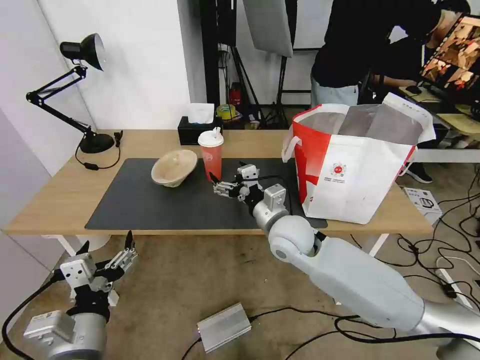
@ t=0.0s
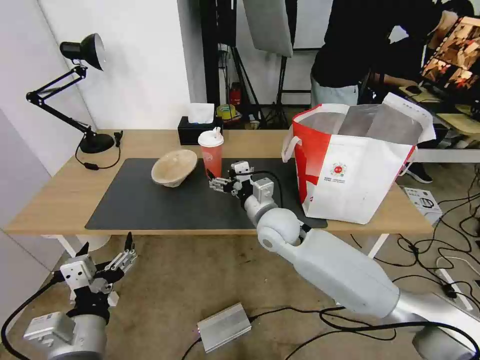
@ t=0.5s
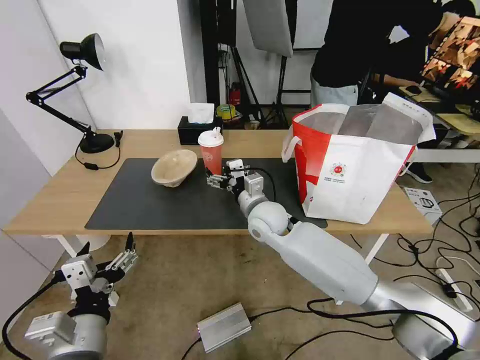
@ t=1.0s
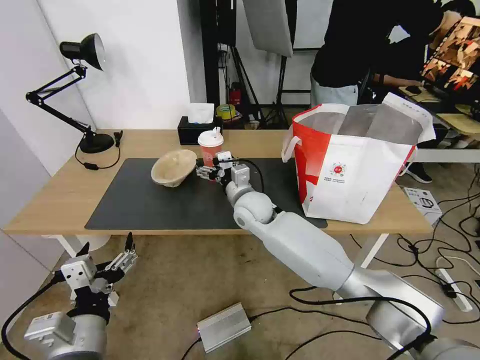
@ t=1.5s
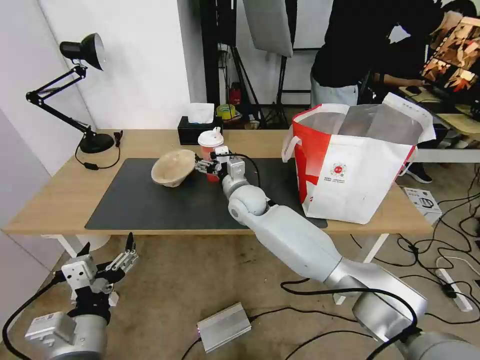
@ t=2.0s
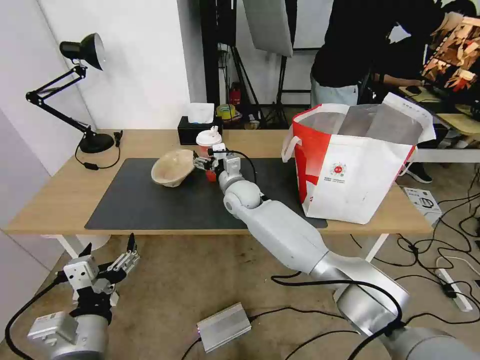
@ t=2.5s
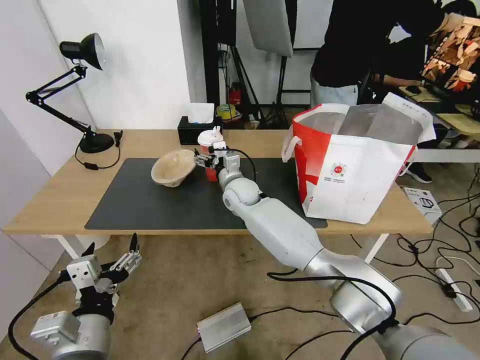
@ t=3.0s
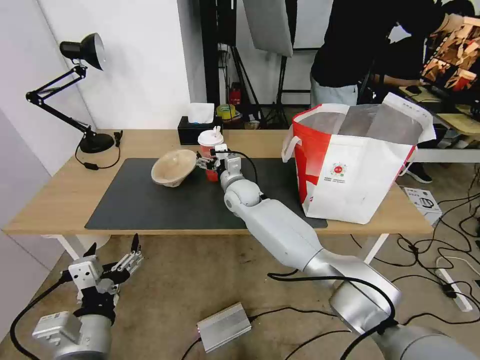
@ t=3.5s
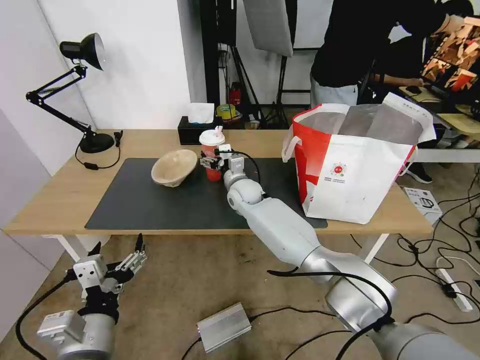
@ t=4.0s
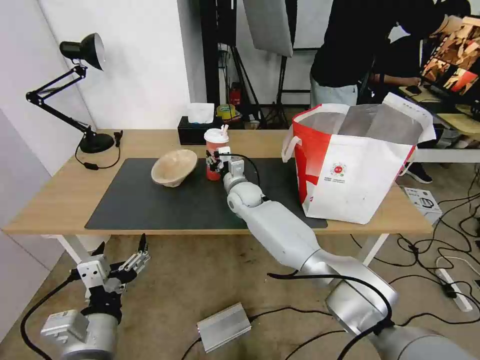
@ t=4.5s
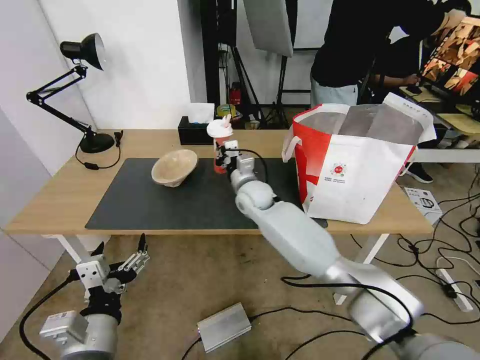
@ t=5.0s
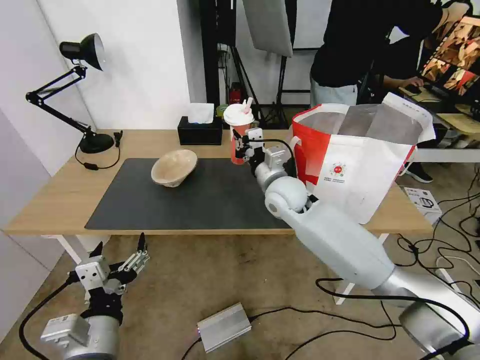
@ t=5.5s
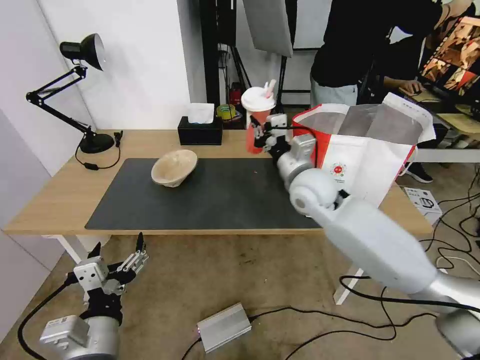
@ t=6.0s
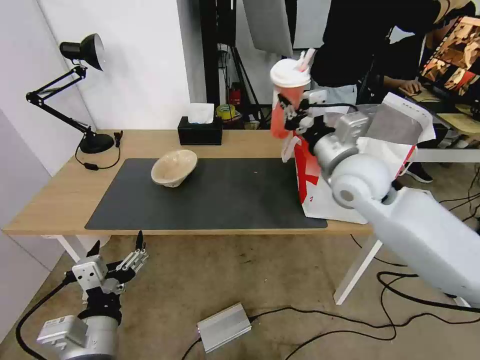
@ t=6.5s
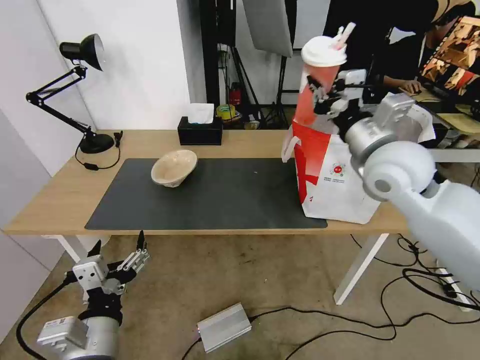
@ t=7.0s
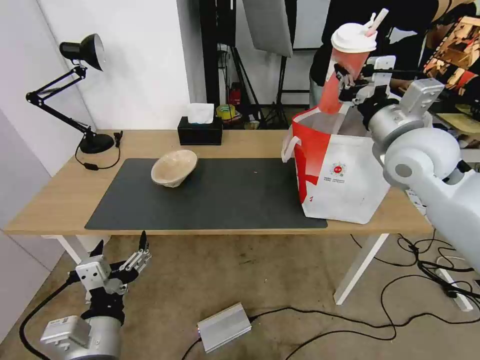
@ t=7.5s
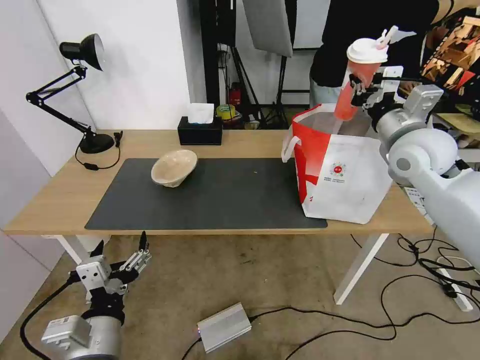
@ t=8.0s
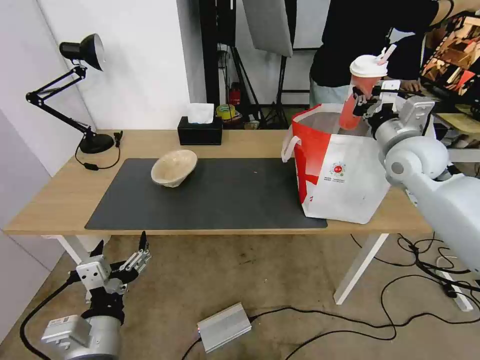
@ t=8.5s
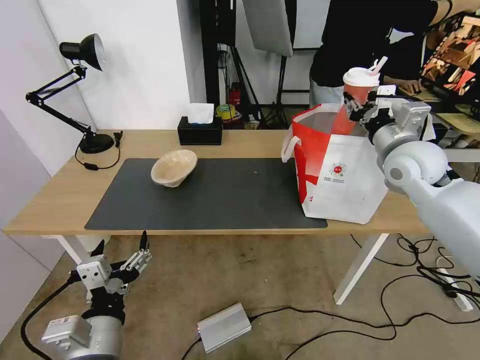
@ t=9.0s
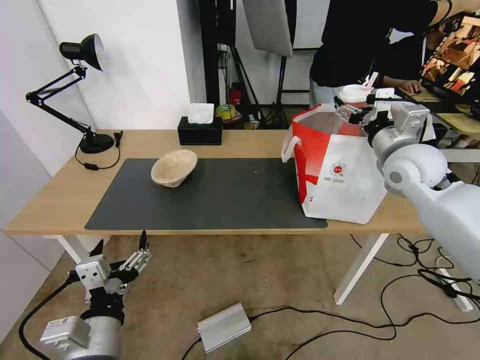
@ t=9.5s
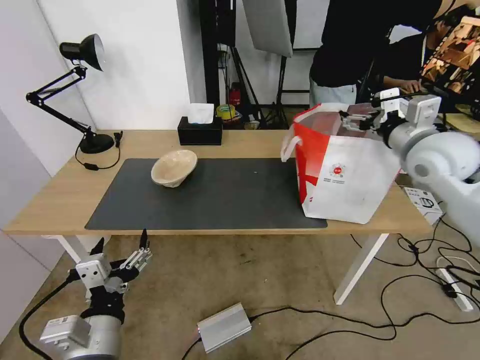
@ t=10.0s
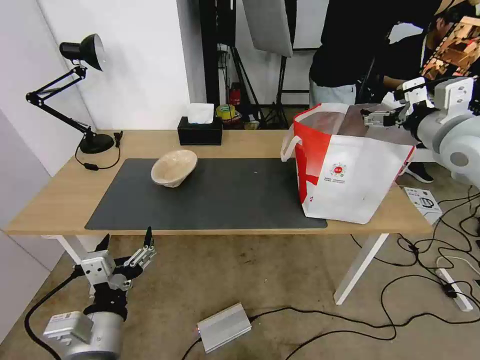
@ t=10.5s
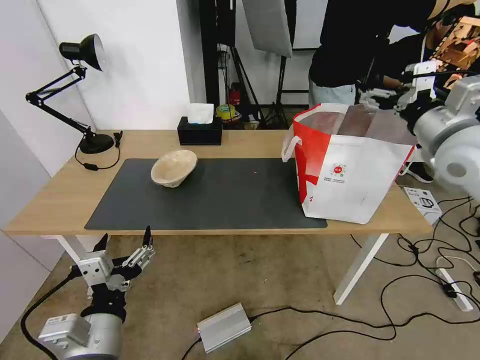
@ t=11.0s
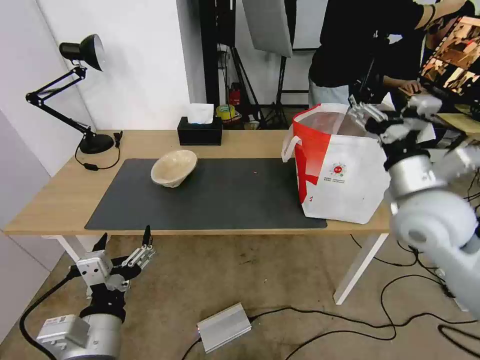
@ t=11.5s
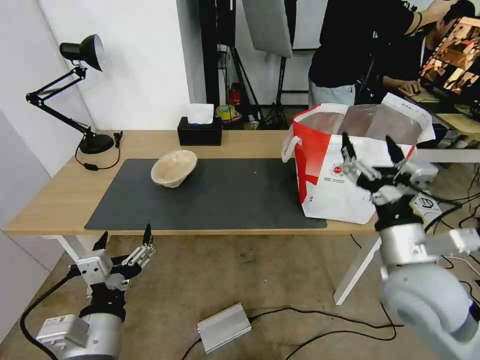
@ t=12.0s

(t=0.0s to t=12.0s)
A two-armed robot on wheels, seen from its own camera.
Task of the whole recording: Pick up the trash from the table and place it into the takeout bag.
t=0.0s - t=2.0s: The right gripper is displaced forward and to the left by approximately 15 cm.
t=2.0s - t=4.0s: The right gripper heads forward, covering approximately 5 cm.
t=4.0s - t=6.0s: The right gripper is displaced to the right, upward and backward by roughly 20 cm, and closes its fingers.
t=6.0s - t=8.0s: The right gripper shifts about 20 cm to the right and upward.
t=8.0s - t=10.0s: The right gripper opens.
t=10.0s - t=12.0s: The right gripper shifts about 25 cm backward, downward and to the left.

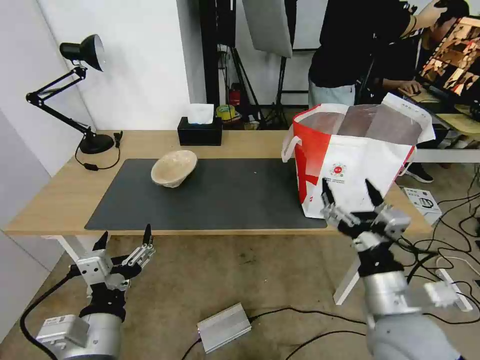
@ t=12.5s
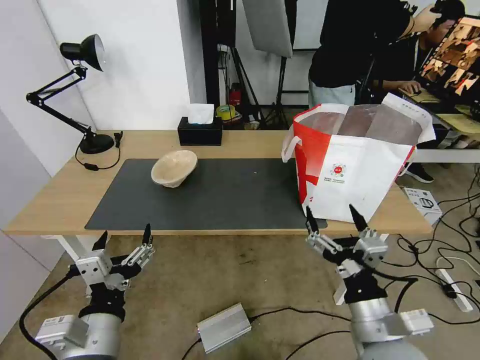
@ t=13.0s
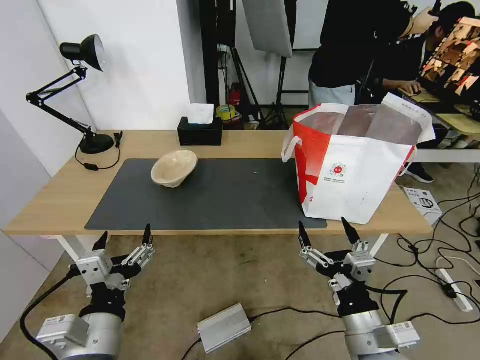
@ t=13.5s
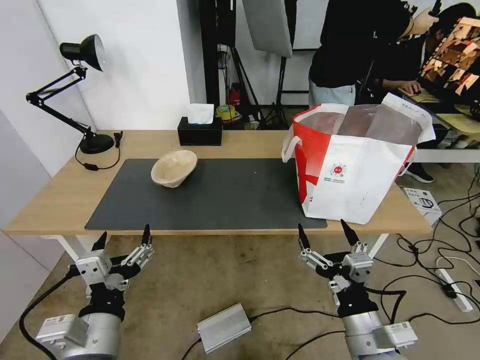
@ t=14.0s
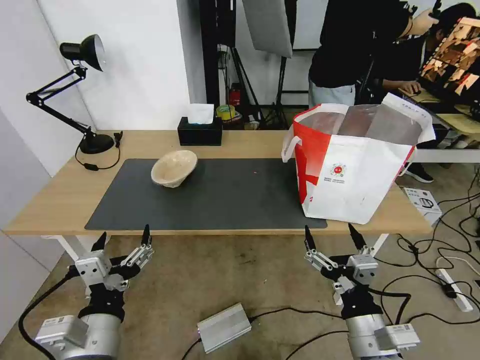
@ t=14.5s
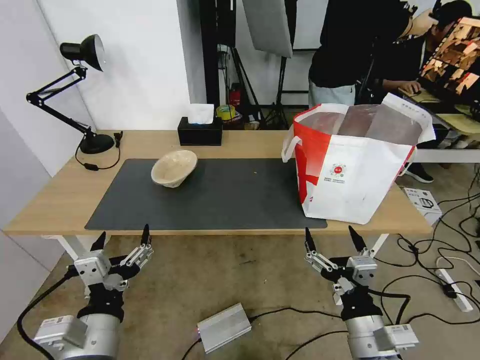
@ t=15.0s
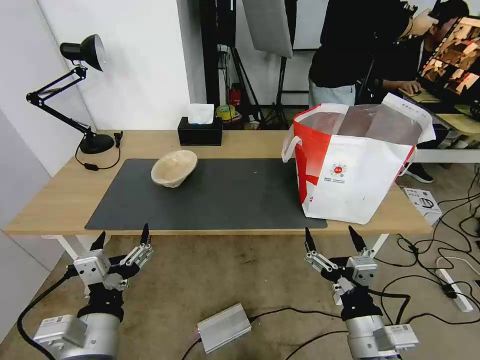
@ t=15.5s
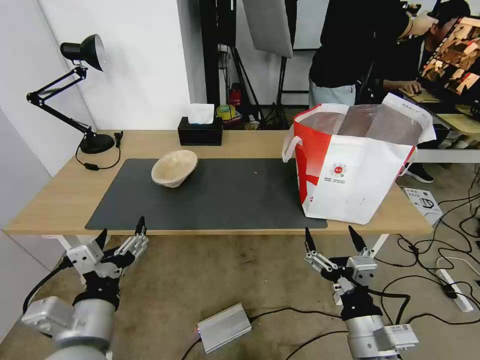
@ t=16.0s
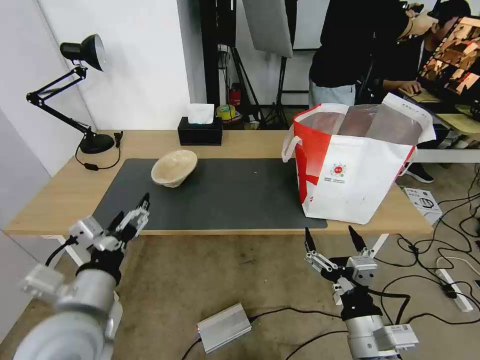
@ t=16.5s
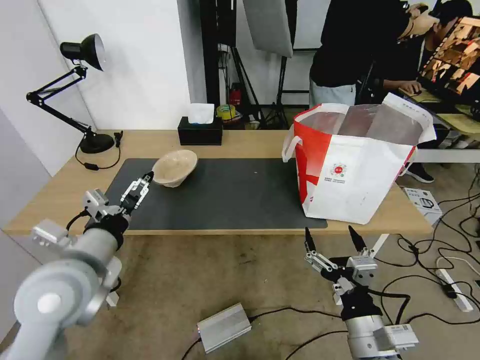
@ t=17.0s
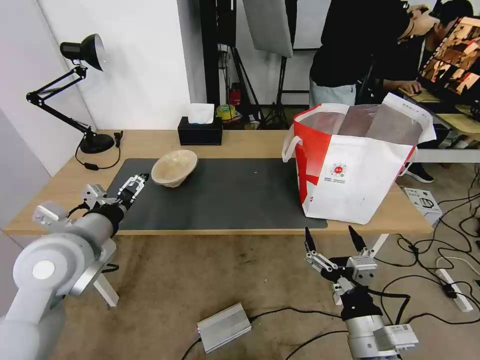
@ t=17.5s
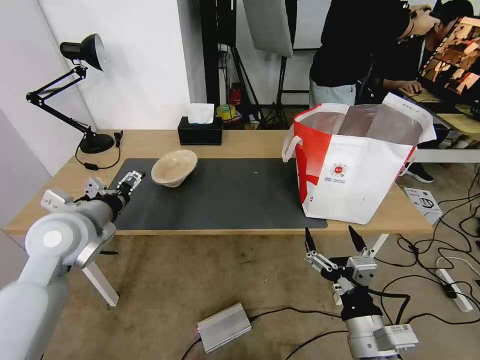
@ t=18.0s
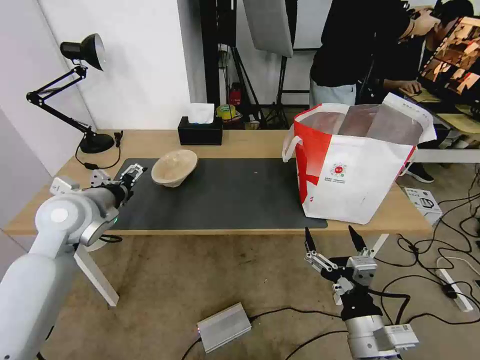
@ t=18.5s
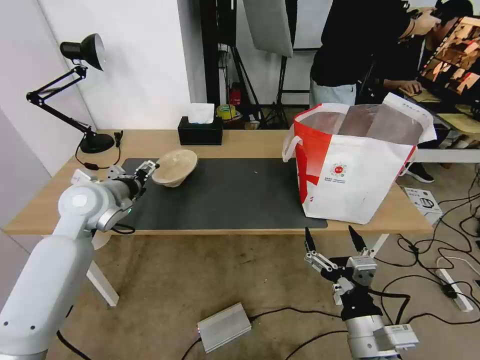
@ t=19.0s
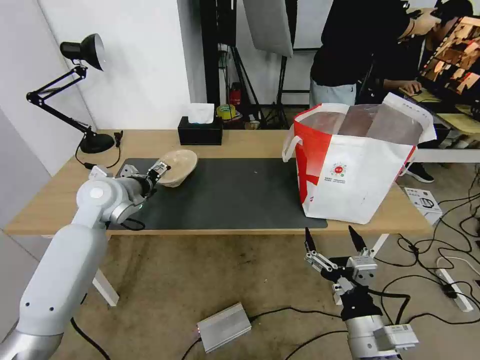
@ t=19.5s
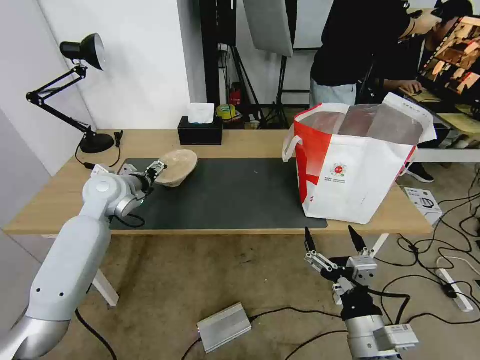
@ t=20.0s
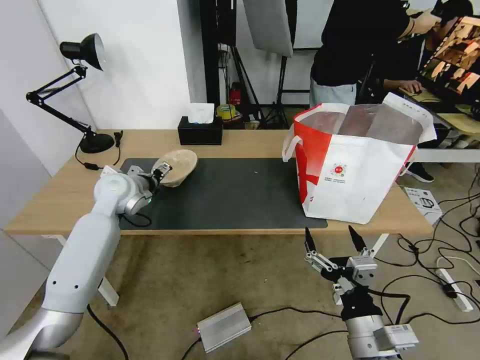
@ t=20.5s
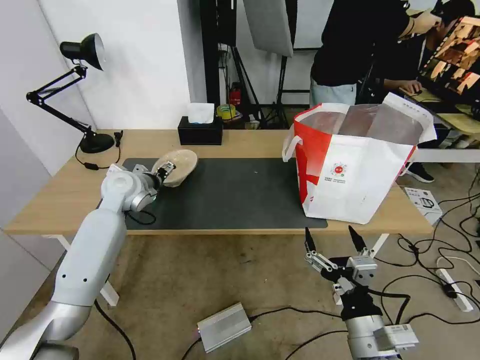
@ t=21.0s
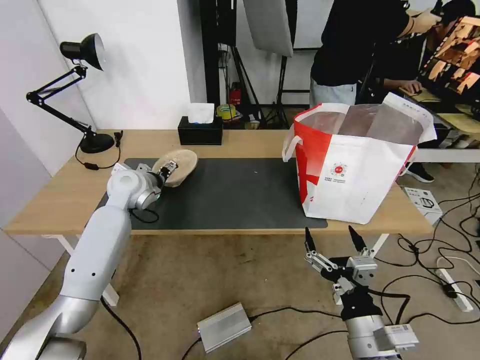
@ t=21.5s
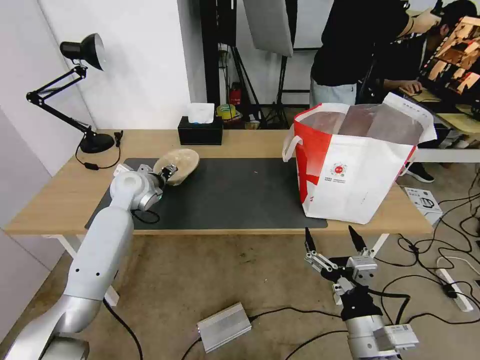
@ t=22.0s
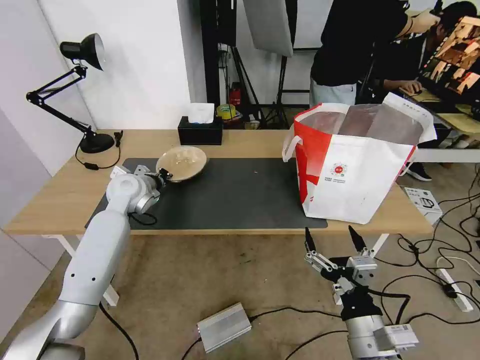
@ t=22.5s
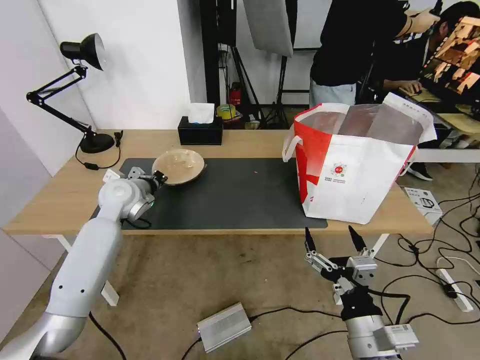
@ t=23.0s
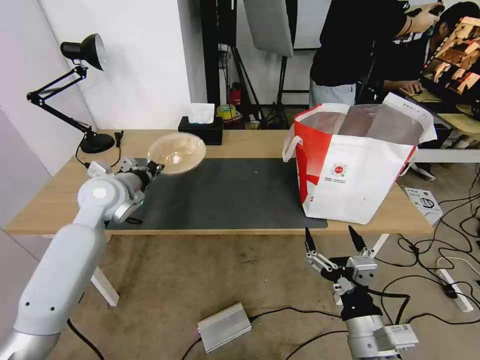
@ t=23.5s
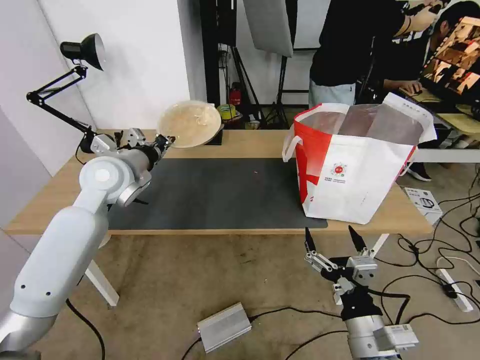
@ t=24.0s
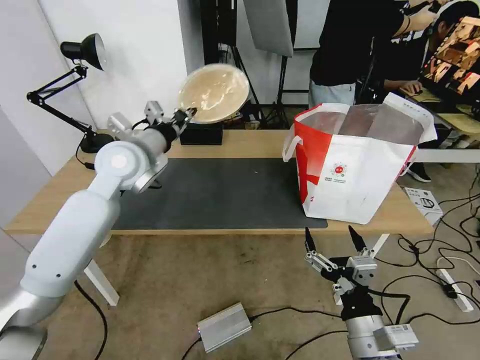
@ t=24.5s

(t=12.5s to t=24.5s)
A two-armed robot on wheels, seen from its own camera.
Task of the whole recording: Pick up the trash from the table and place it into the takeout bag.
t=12.5s - t=14.5s: The right gripper is displaced downward and backward by approximately 10 cm.
t=14.5s - t=16.5s: The left gripper travels forward by about 5 cm.
t=16.5s - t=18.5s: The left gripper goes approximately 20 cm forward.
t=18.5s - t=20.5s: The left gripper moves forward, some 10 cm.
t=20.5s - t=22.5s: The left gripper closes up.
t=22.5s - t=24.5s: The left gripper shifts some 15 cm upward, to the right and backward.

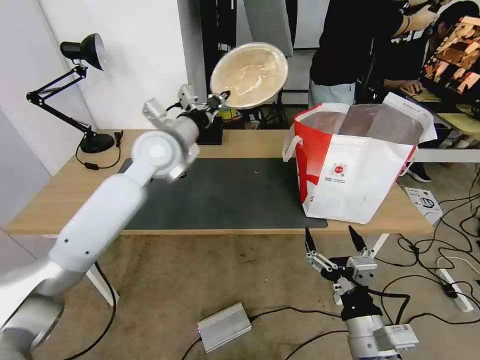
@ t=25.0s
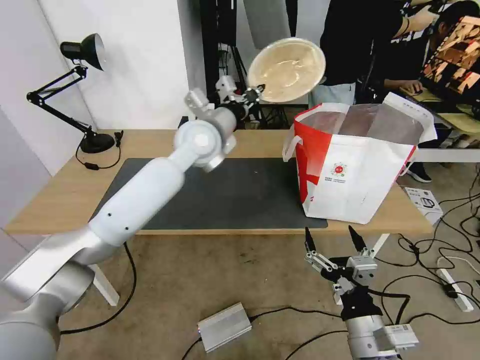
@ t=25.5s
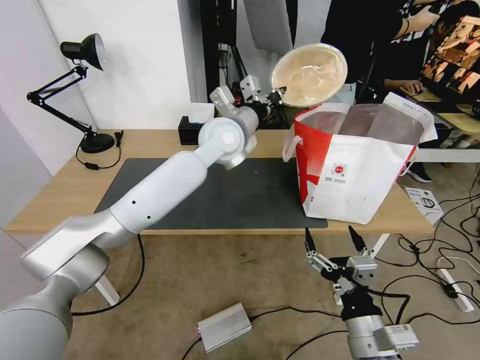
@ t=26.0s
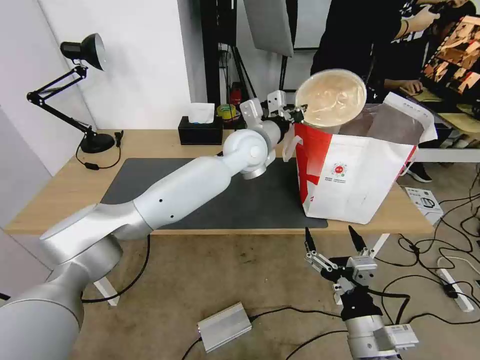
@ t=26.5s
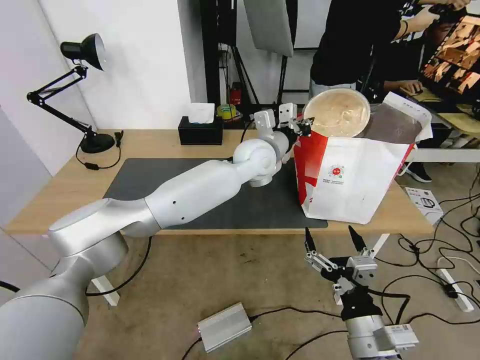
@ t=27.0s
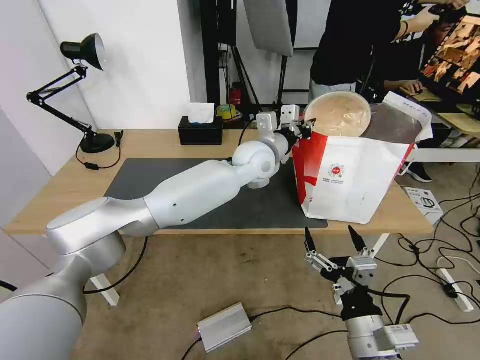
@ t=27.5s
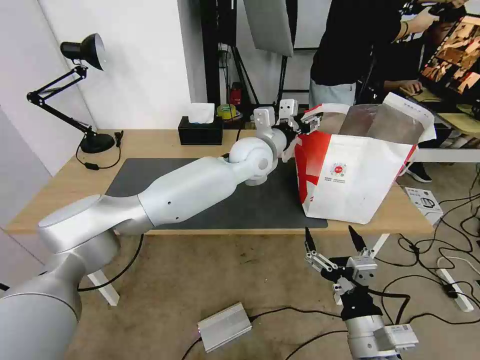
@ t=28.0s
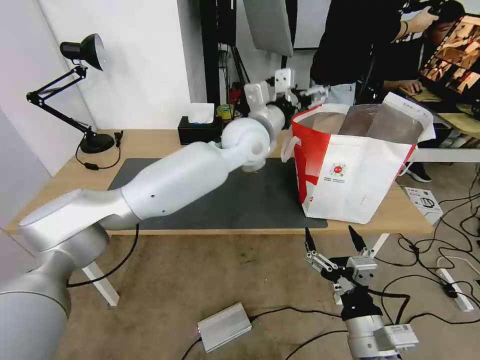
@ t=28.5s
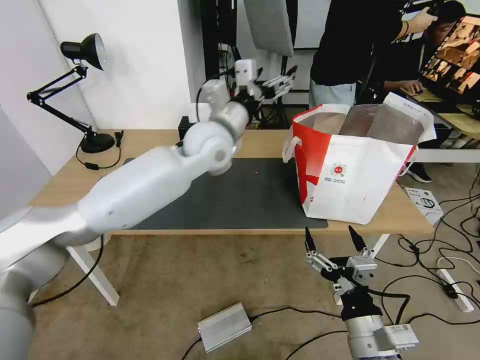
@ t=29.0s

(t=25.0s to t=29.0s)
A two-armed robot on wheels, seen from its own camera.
Task of the whole recording: Pick up the trash from the table and place it into the takeout bag.
t=25.0s - t=27.0s: The left gripper goes approximately 20 cm to the right.
t=27.0s - t=29.0s: The left gripper goes approximately 10 cm to the left and upward, and opens its fingers.
